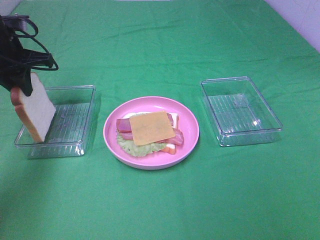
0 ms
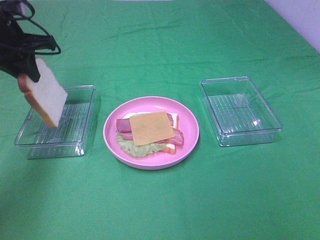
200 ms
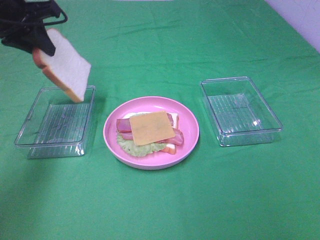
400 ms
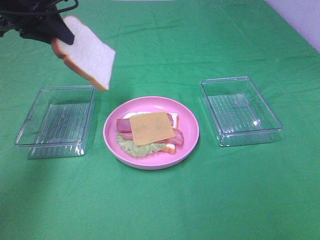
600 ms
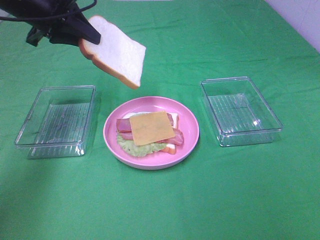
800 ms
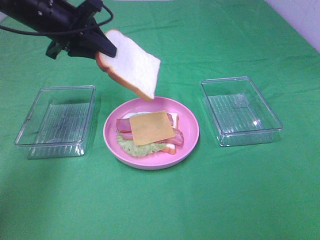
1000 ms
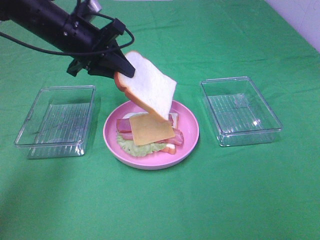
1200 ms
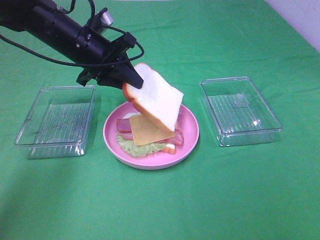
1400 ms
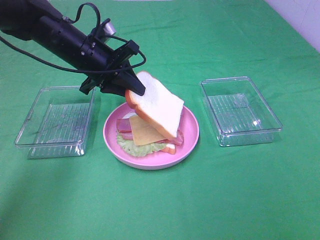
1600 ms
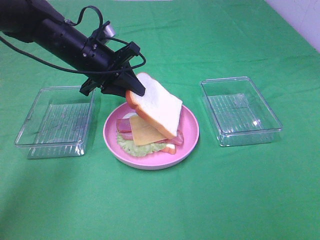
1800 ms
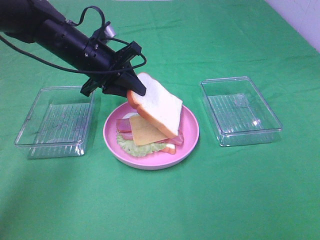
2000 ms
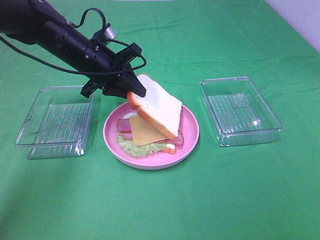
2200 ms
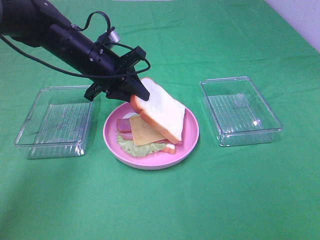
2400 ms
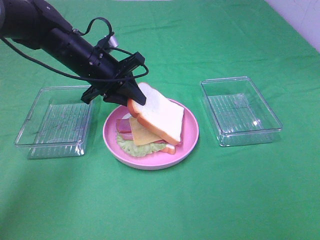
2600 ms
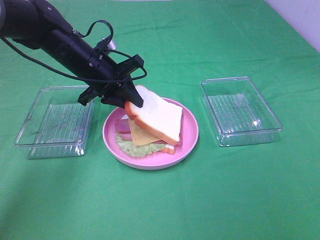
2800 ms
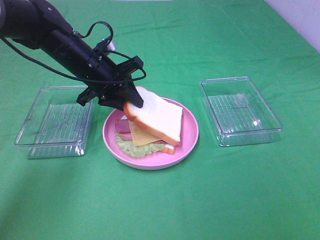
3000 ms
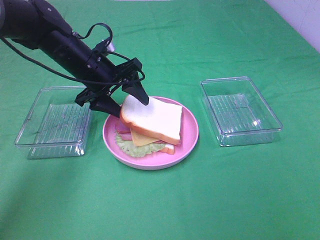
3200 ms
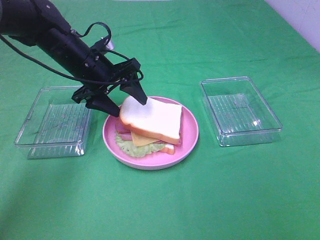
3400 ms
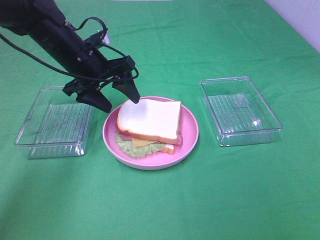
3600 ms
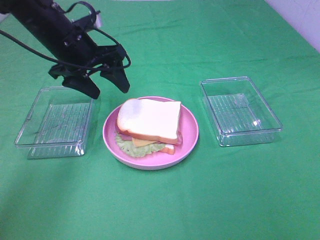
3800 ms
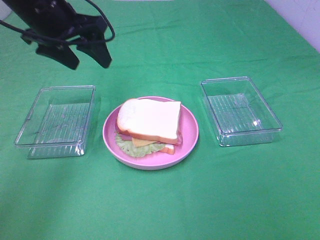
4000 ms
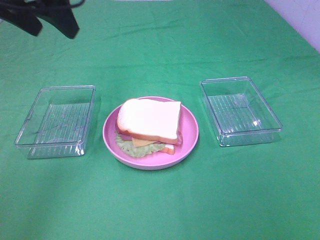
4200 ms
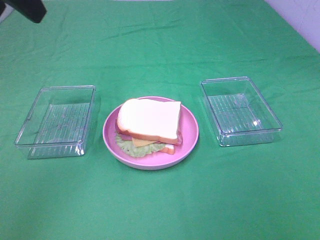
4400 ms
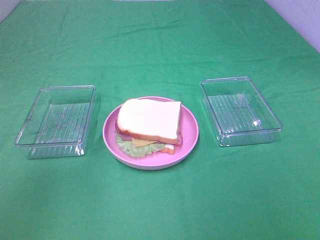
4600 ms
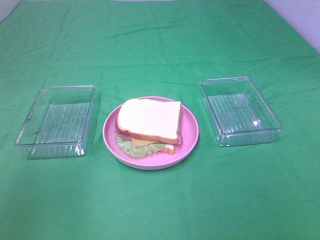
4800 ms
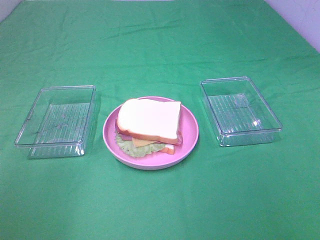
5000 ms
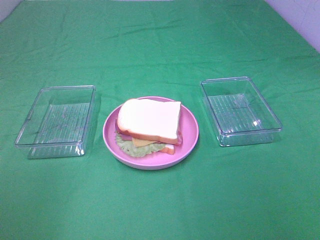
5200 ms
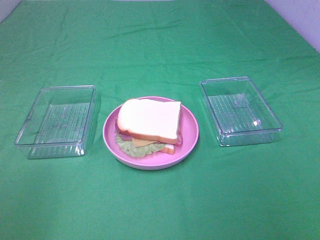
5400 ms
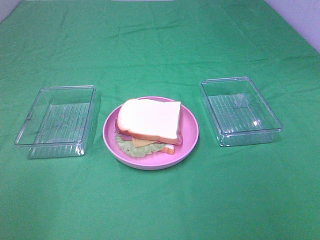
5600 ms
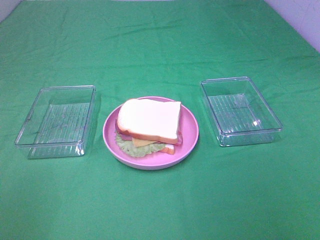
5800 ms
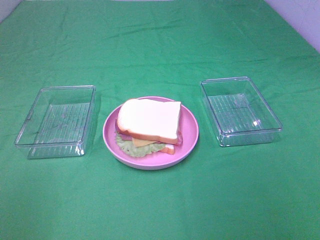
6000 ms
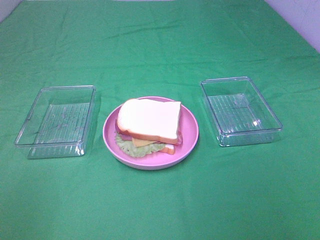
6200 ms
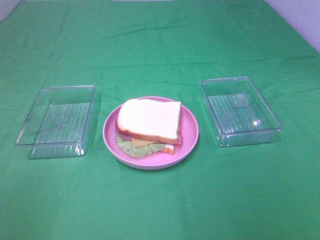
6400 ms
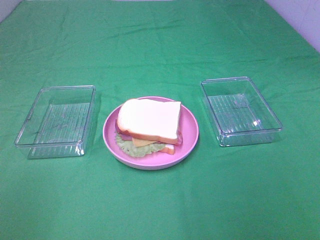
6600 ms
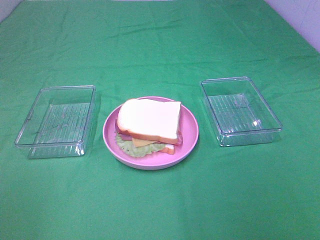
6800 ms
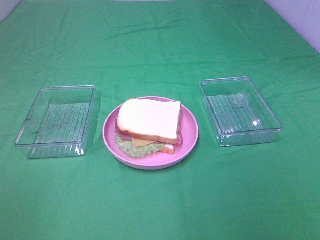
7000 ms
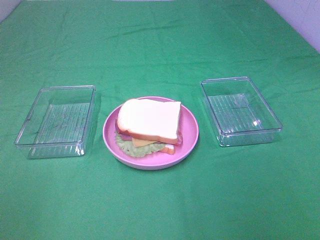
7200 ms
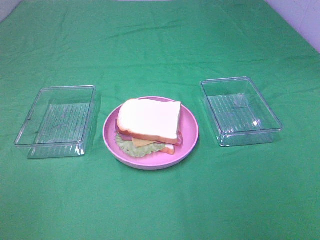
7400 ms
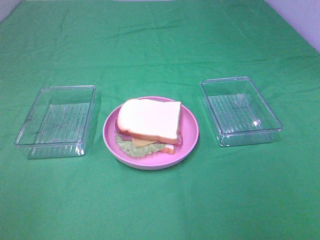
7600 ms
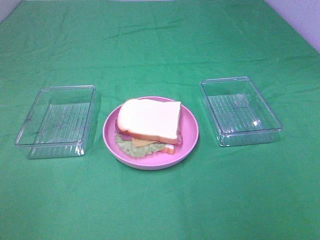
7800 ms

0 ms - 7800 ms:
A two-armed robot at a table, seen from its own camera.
Task of the whole recording: Make sandwiches.
Step, 0 ms - 3800 ms: Left hand:place the bread slice on the cheese slice.
0 ms - 1600 ms: The left gripper moves to the right, approximately 15 cm.
1600 ms - 3200 ms: The left gripper opens.
3200 ms - 4600 ms: The left gripper goes some 35 cm upward, backward and to the left.

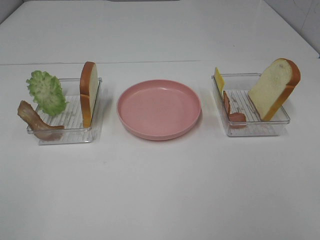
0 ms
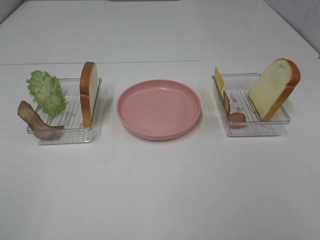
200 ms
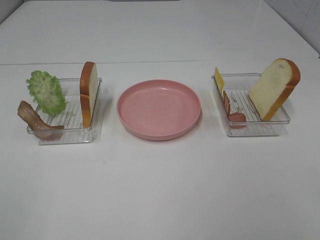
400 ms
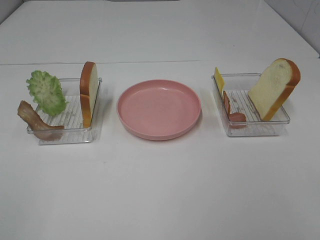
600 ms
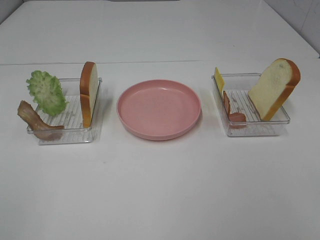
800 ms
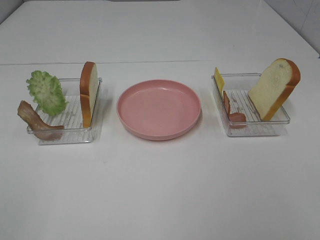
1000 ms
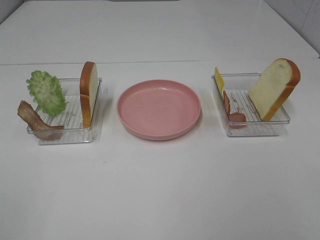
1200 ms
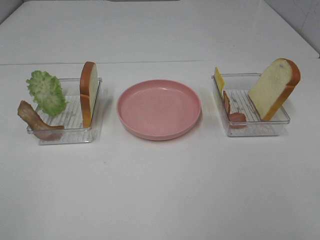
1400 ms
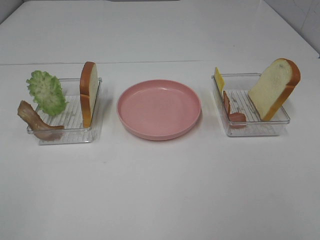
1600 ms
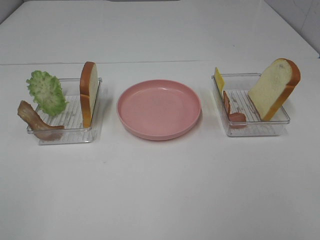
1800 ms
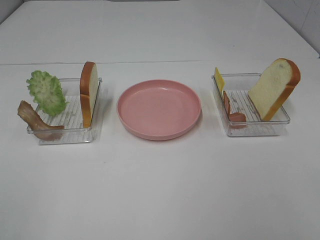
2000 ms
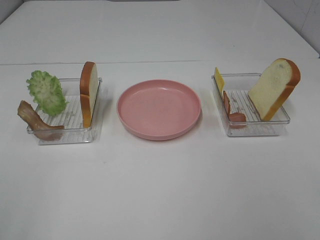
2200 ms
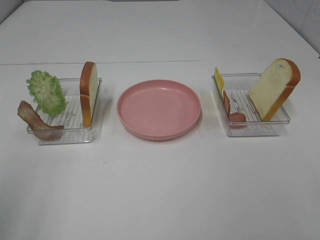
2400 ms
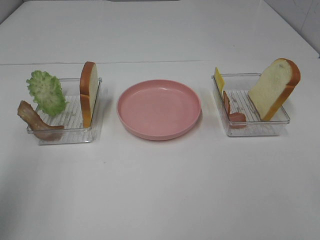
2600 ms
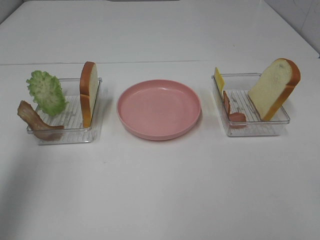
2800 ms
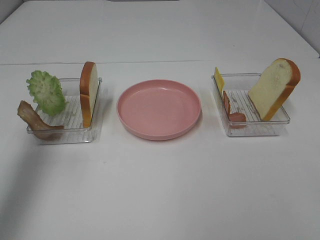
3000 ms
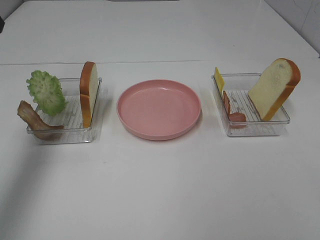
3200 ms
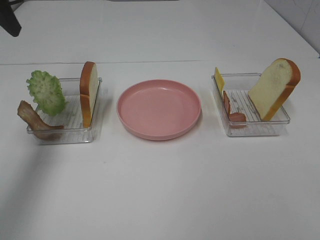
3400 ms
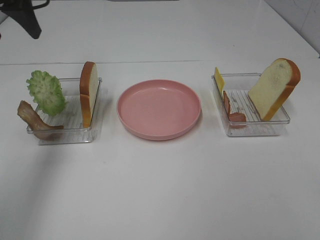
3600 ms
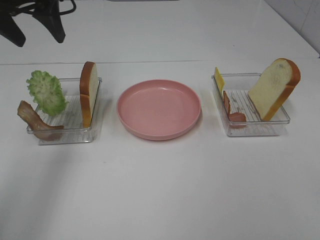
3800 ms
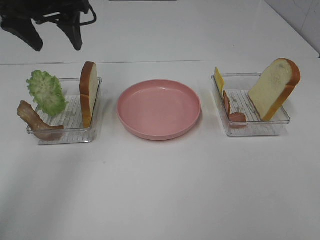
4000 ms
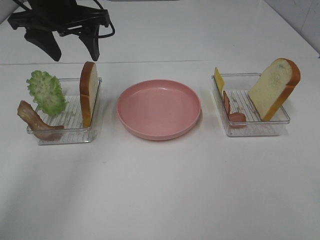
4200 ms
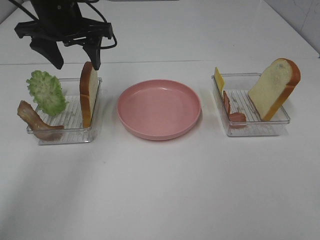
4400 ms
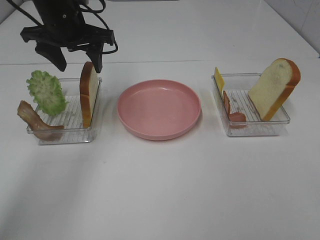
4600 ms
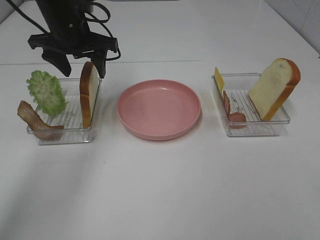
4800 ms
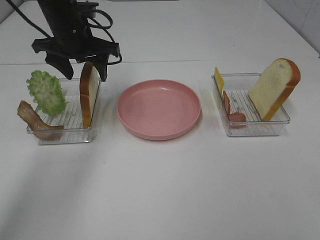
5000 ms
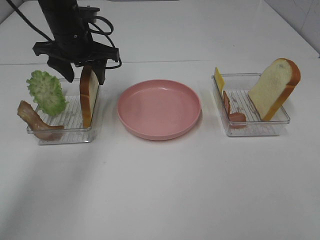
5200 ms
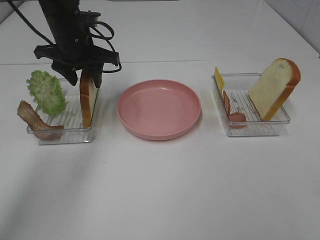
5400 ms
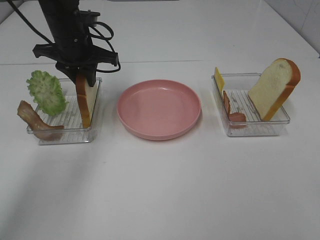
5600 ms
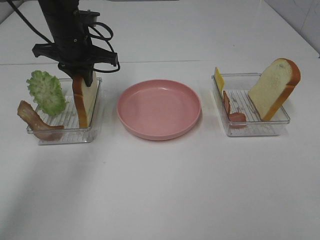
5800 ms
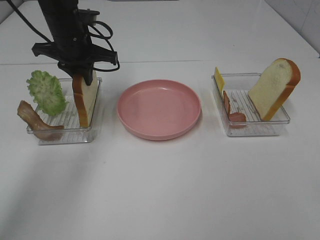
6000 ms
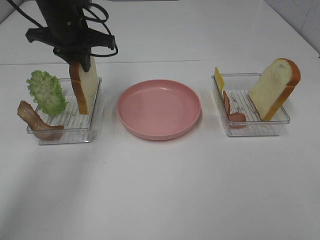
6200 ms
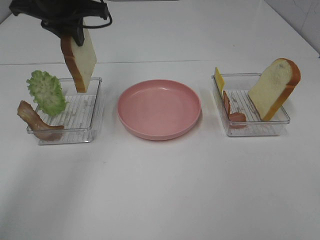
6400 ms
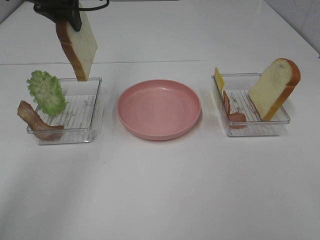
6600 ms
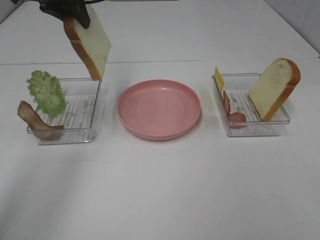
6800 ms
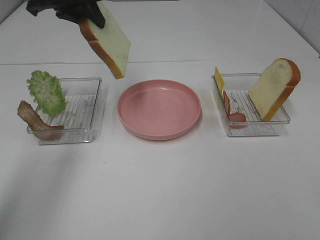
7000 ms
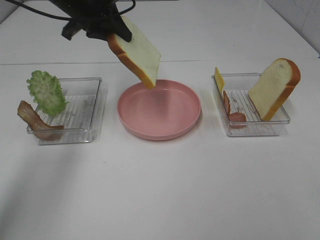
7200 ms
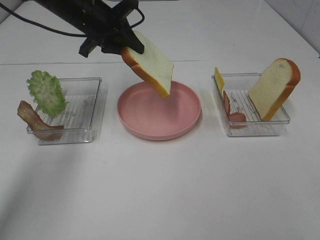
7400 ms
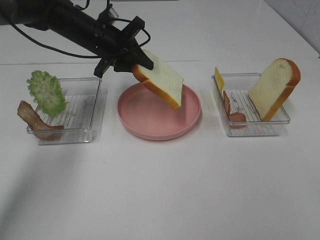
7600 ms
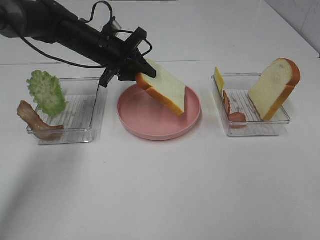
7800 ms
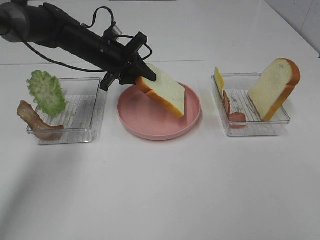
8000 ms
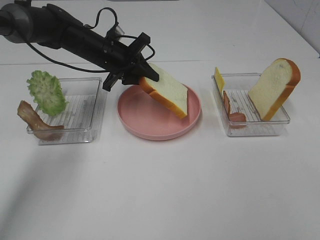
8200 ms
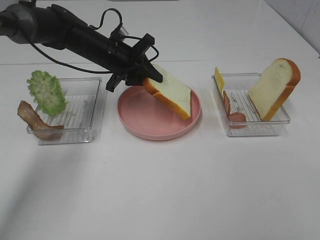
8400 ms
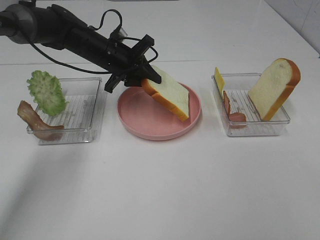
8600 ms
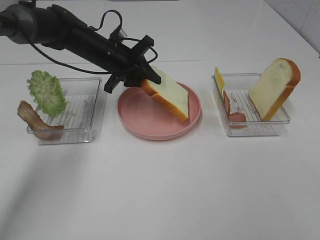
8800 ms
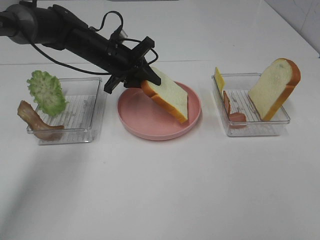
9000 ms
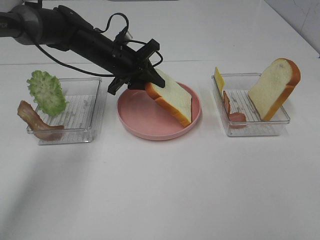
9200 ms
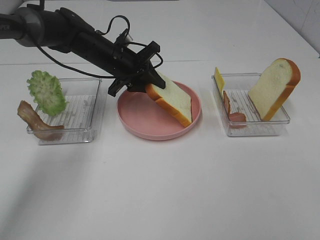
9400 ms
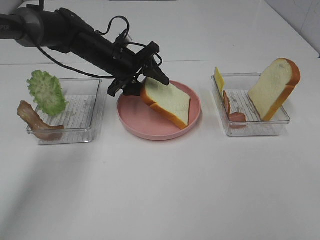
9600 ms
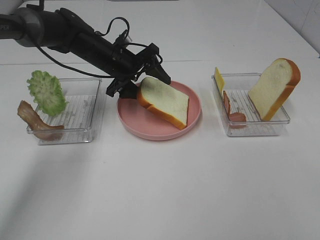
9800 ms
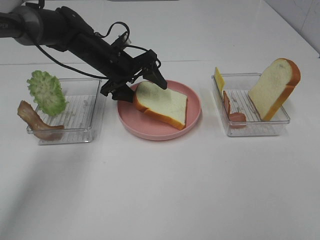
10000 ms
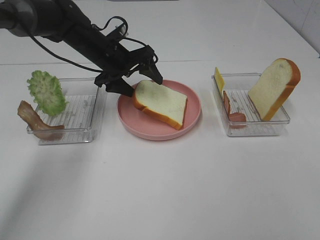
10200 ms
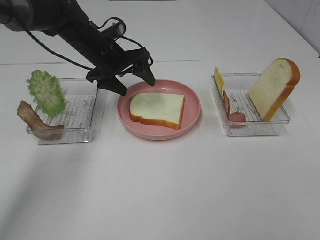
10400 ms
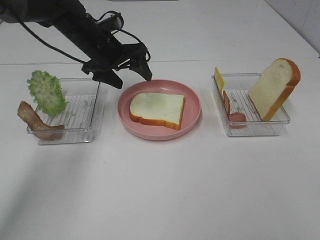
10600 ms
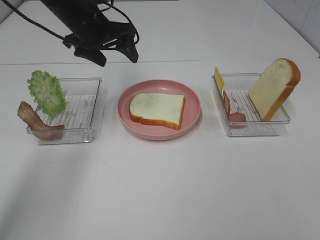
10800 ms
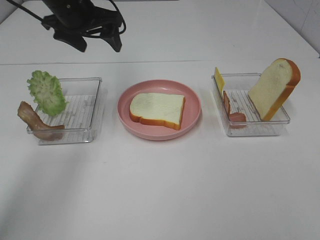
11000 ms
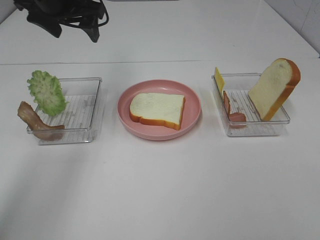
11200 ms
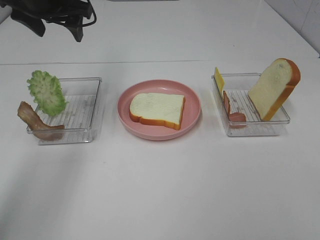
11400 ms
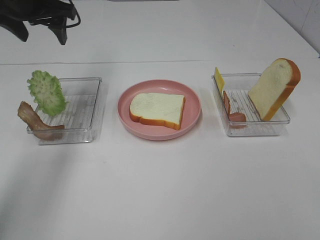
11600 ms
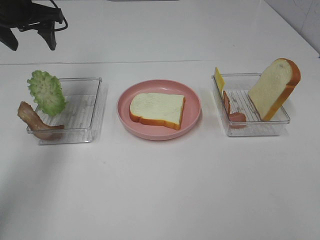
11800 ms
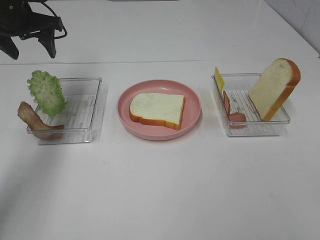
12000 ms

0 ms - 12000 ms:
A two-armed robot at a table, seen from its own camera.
Task of the whole recording: Make sandwiches.
Step, 0 ms - 5600 ms: Left hand:grab the bread slice.
Step, 5800 ms - 10600 ms: Left hand:place the bread slice on the plate.
0 ms - 1600 ms: Both grippers stay put.
1600 ms - 3000 ms: The left gripper shifts about 30 cm forward.
3000 ms - 4400 ms: The left gripper goes roughly 20 cm forward, to the right and downward.
4400 ms - 6000 ms: The left gripper travels downward by approximately 5 cm, and closes.
6000 ms - 7600 ms: The left gripper goes upward and returns, about 10 cm each way.
7600 ms - 9000 ms: There are only small adjustments of the grippers.
9000 ms - 10400 ms: The left gripper opens its fingers.
10400 ms - 12000 ms: The left gripper moves to the left and upward, some 15 cm.

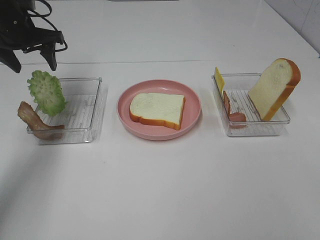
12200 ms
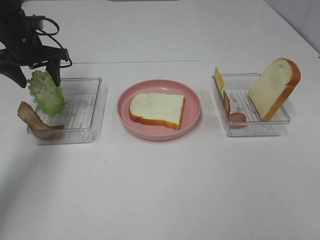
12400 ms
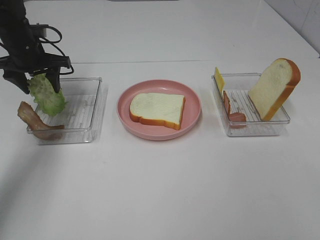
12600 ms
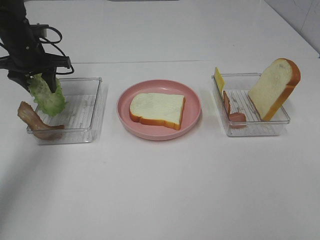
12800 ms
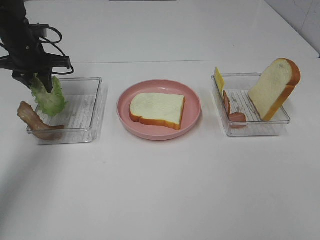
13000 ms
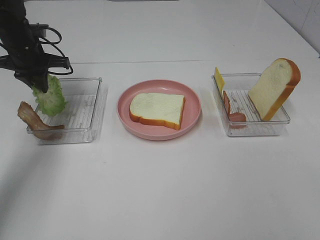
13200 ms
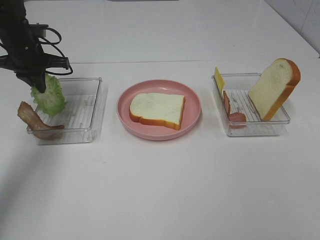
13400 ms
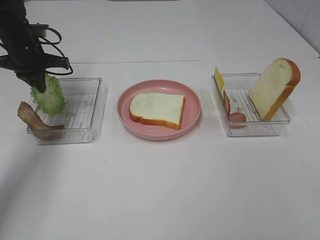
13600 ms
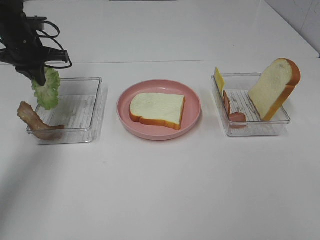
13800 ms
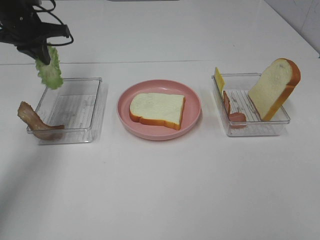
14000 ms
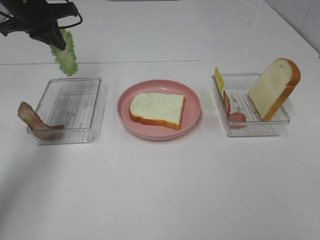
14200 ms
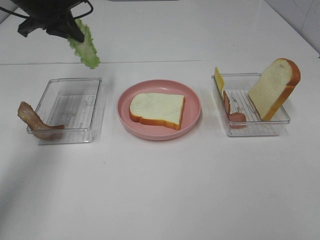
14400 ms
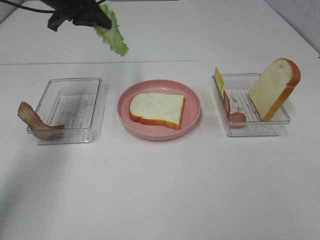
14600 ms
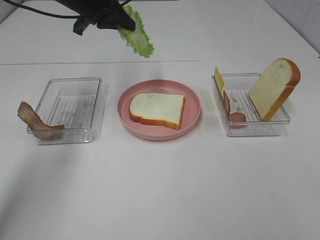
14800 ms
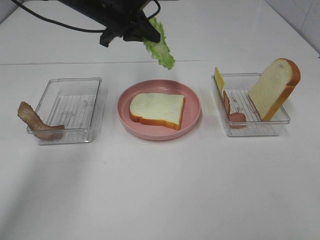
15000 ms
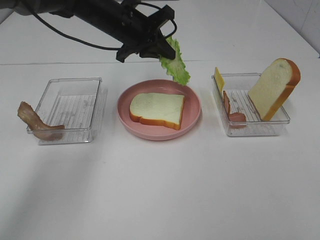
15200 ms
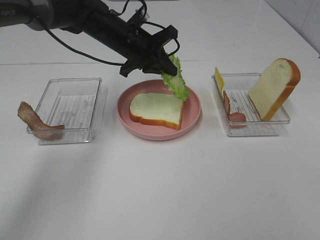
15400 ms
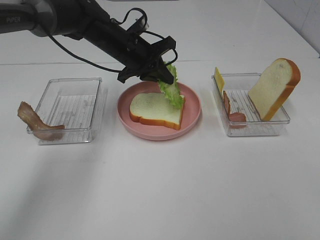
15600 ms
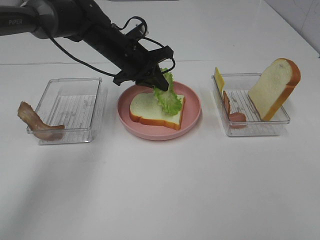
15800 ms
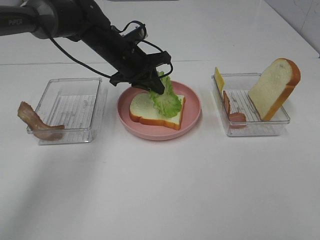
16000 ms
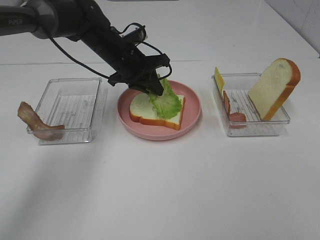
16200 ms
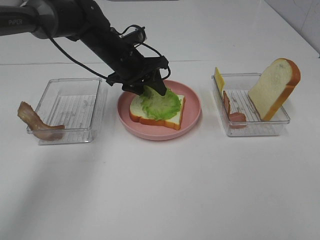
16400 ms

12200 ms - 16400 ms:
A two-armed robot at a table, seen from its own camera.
Task of the whole recording: Make sandwiches.
12200 ms - 13600 ms: The left gripper goes about 5 cm downward, and closes.
13600 ms - 15000 ms: The left gripper moves to the right, roughly 15 cm.
15000 ms - 16400 ms: The left gripper travels downward by some 10 cm, and opens its fingers.
